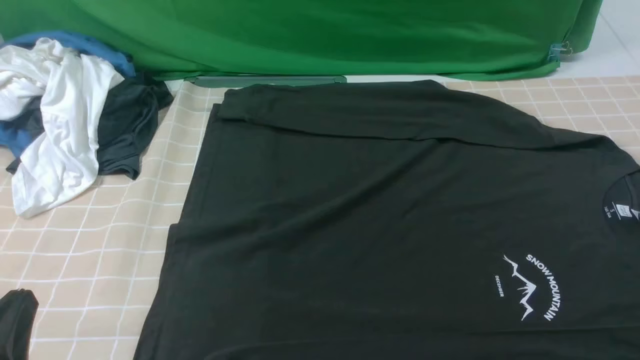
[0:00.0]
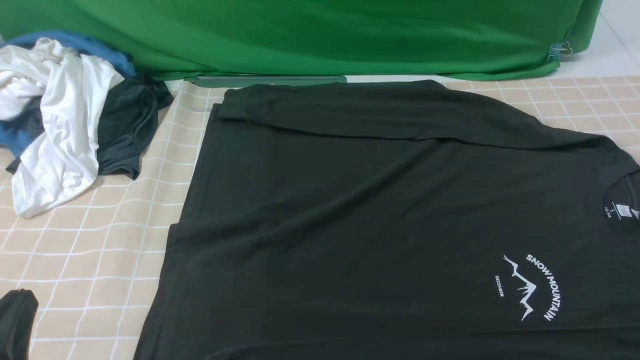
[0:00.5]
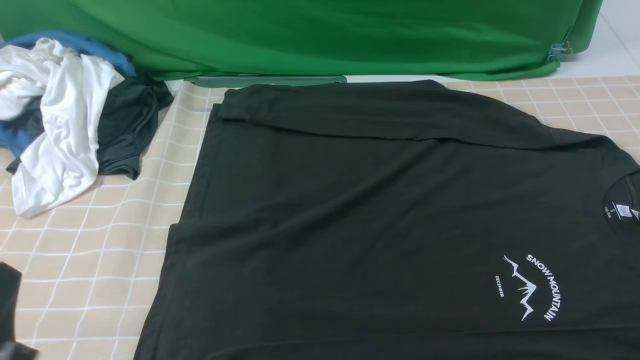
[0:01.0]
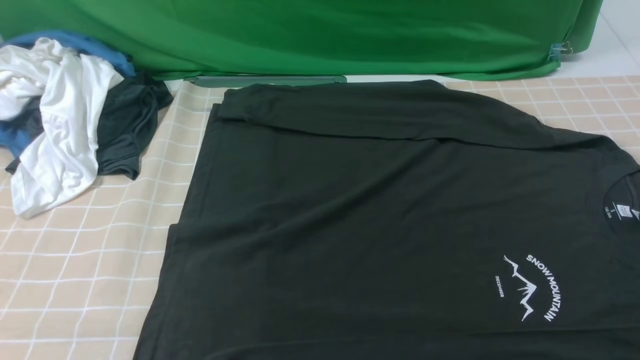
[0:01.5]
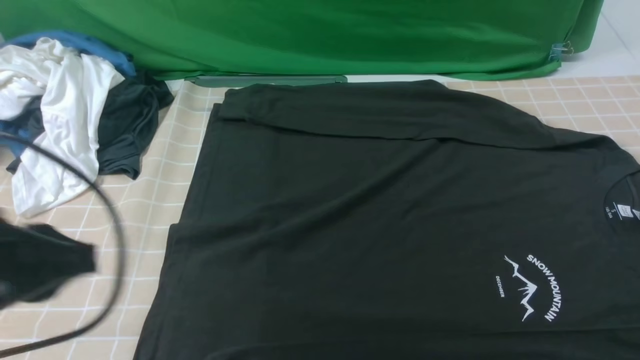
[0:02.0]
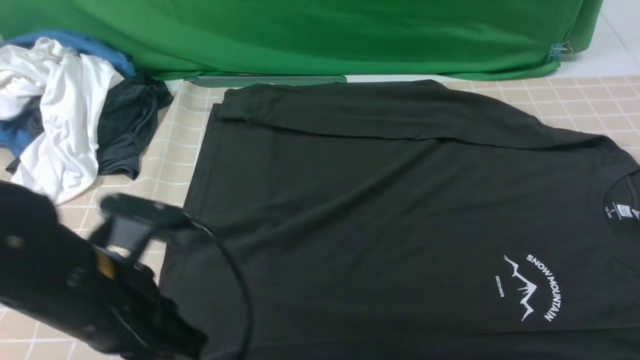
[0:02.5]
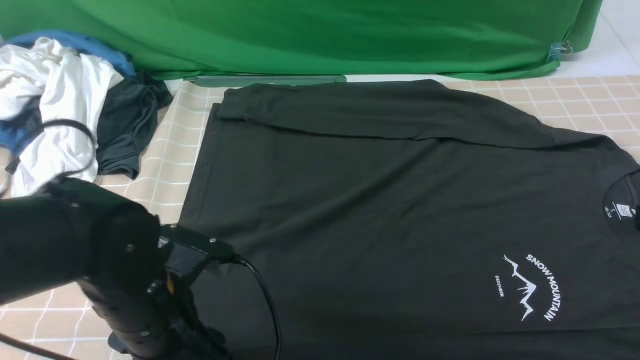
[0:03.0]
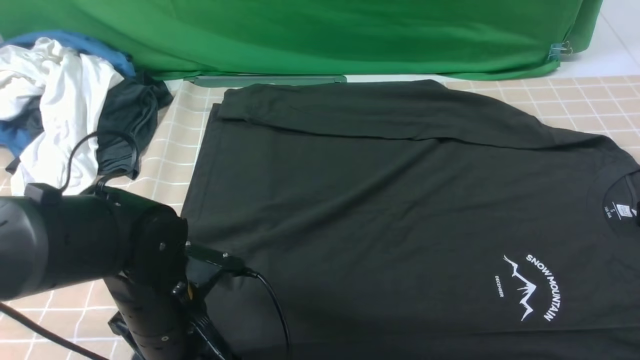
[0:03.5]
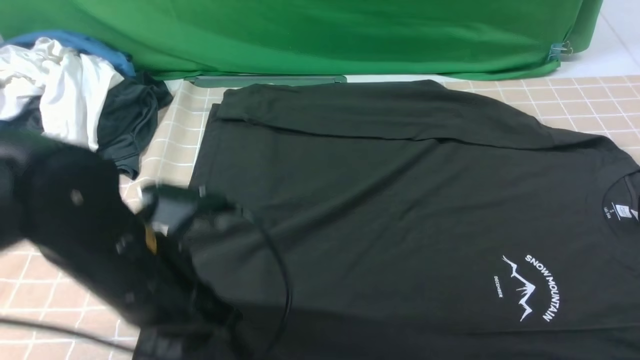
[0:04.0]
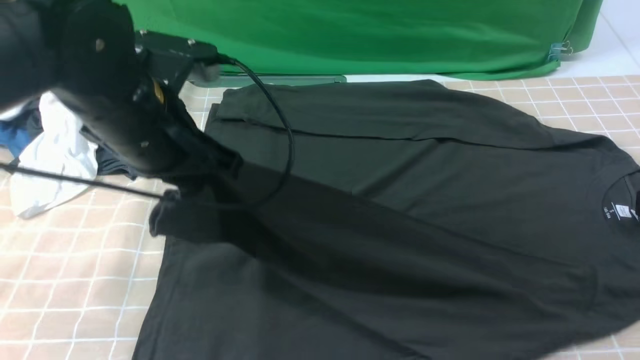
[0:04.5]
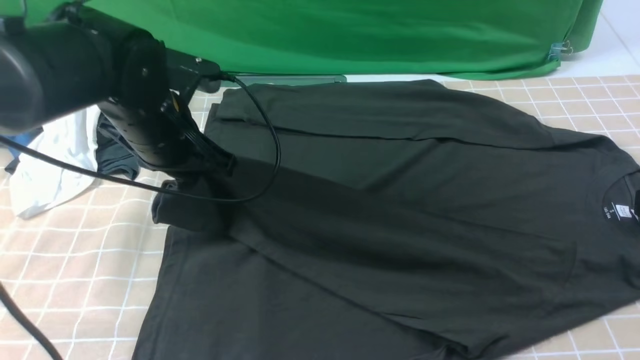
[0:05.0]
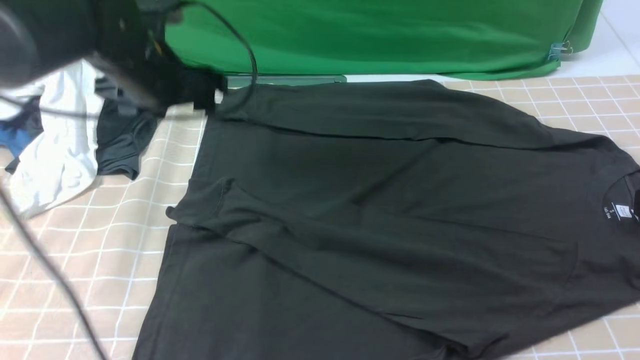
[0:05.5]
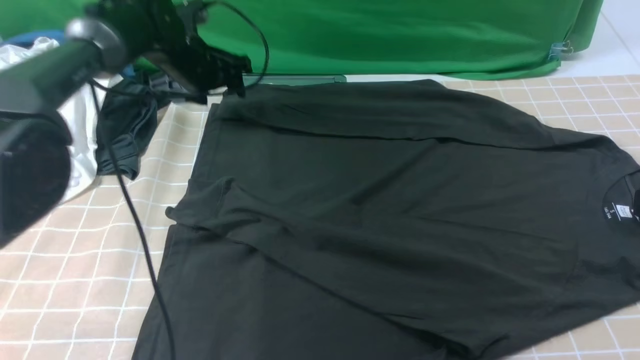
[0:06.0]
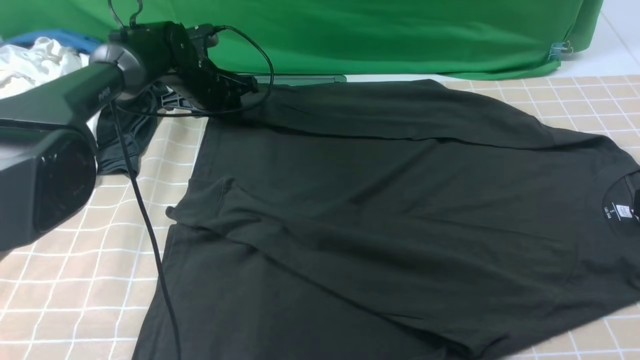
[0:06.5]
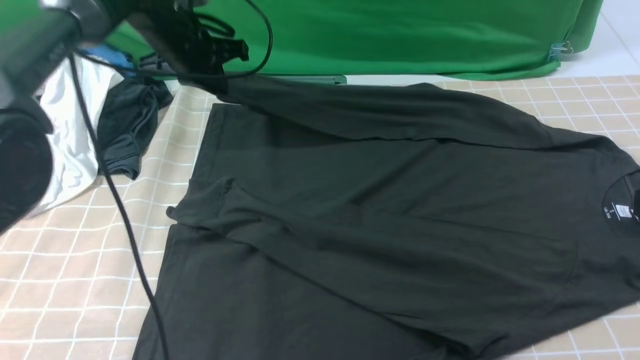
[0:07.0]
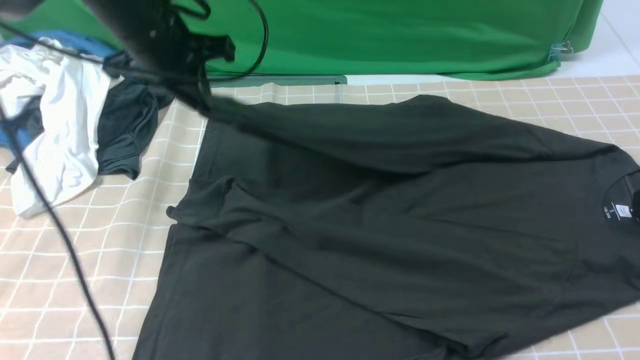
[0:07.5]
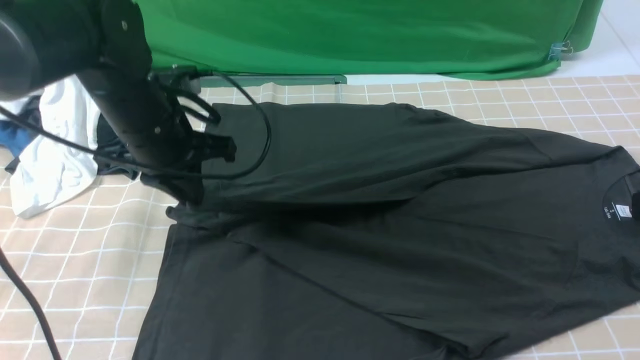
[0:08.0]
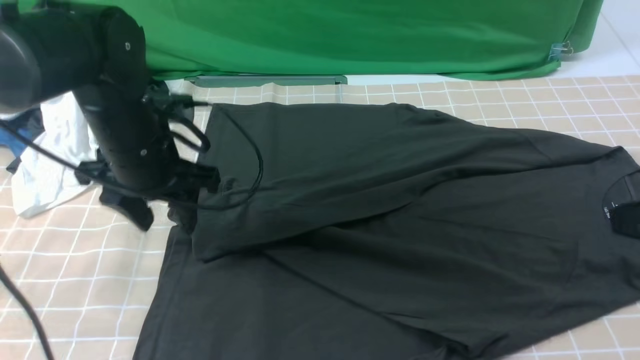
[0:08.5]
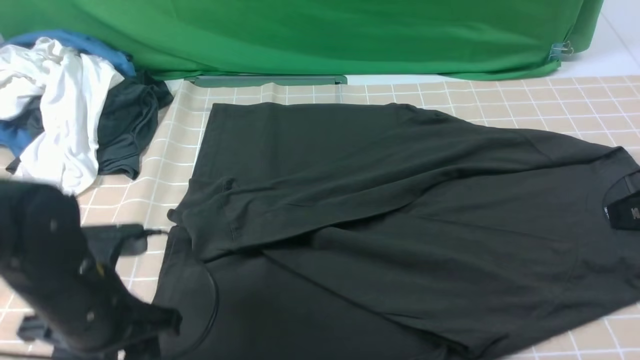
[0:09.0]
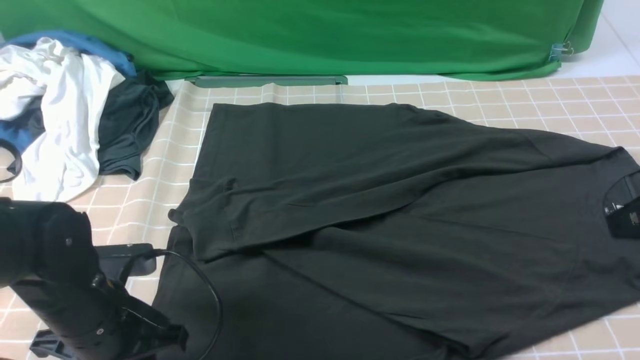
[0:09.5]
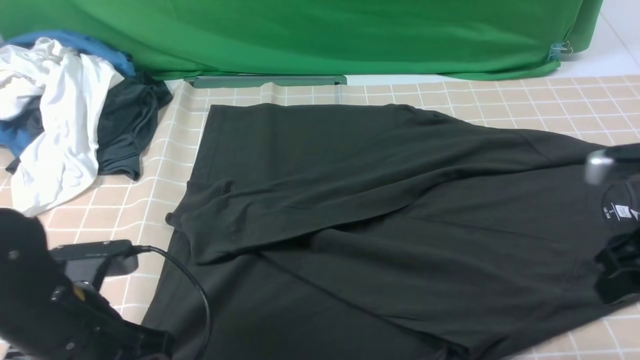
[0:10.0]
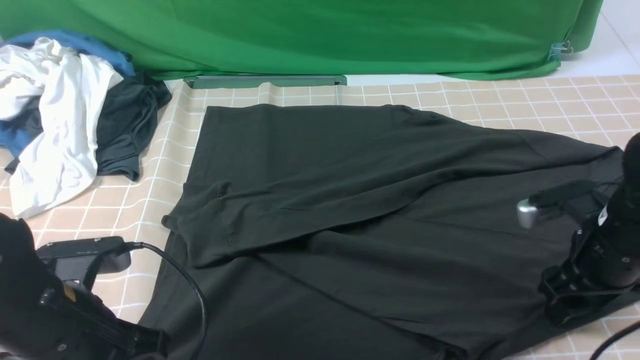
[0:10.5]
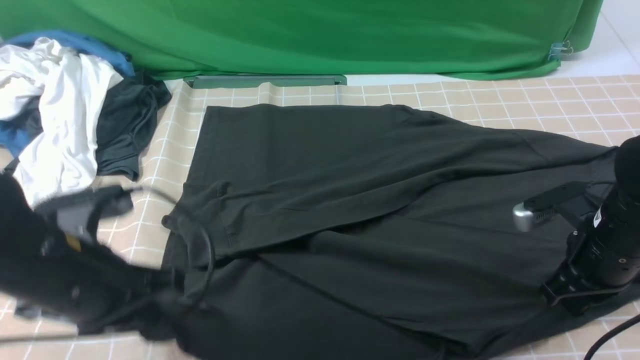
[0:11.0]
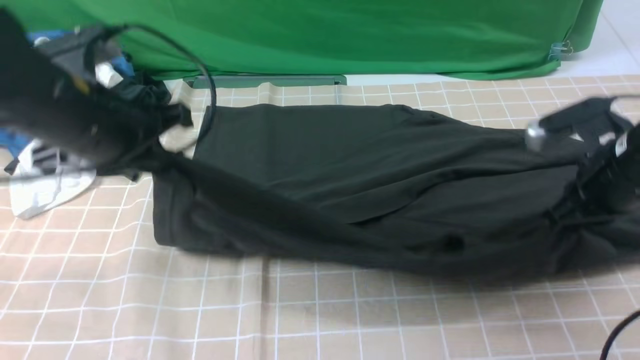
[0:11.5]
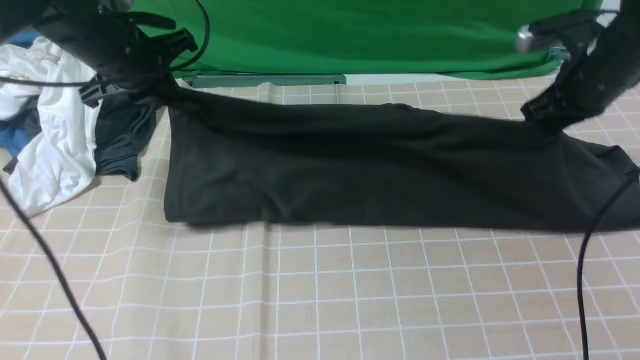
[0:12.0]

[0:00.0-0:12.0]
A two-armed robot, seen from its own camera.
Step, 0:00.0 to 0:03.5: use the left arm to clamp the cuff closest to it.
Step, 0:04.0 to 0:05.0: use the left arm to drag and place the cuff at the centered position on the left edge of the fabric.
Step, 0:05.5 to 0:06.5: use the left arm to clamp the cuff farthest from it.
Step, 0:07.0 to 0:08.0: use the left arm to drag and drop the cuff onto the cuff closest to the left arm.
Step, 0:08.5 to 0:10.5: use both arms simultaneously to clamp the lower edge of the clothing fabric.
0:00.0 to 0:02.0: The left gripper travels upward and forward by roughly 15 cm.
0:02.0 to 0:04.0: The right gripper moves forward and upward, approximately 10 cm; the left gripper shifts about 15 cm to the right, downward and forward, and opens, then closes again.
0:04.0 to 0:06.0: The left gripper is displaced forward by roughly 30 cm, and opens up.
0:06.0 to 0:08.0: The left gripper heads backward, covering approximately 15 cm, and closes.
0:08.0 to 0:10.0: The left gripper travels backward by approximately 20 cm, and opens, then closes once more, while the right gripper travels forward and downward by approximately 10 cm, and opens up.
0:10.0 to 0:12.0: Both grippers travel together forward, approximately 25 cm. The right gripper closes its fingers.

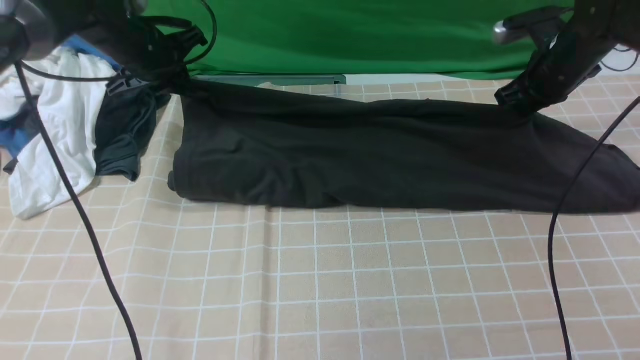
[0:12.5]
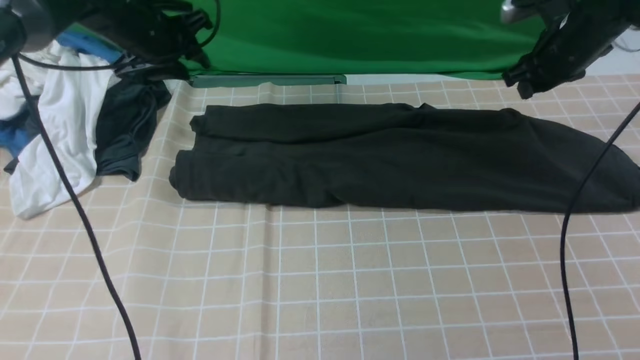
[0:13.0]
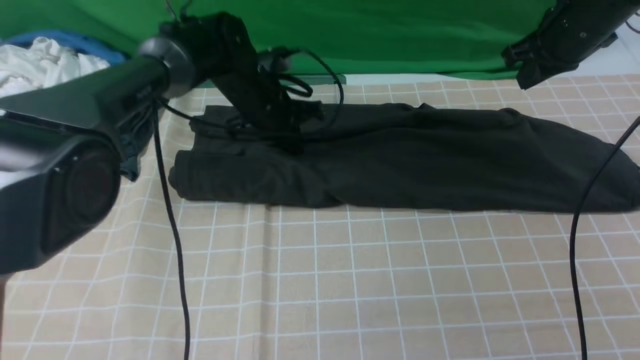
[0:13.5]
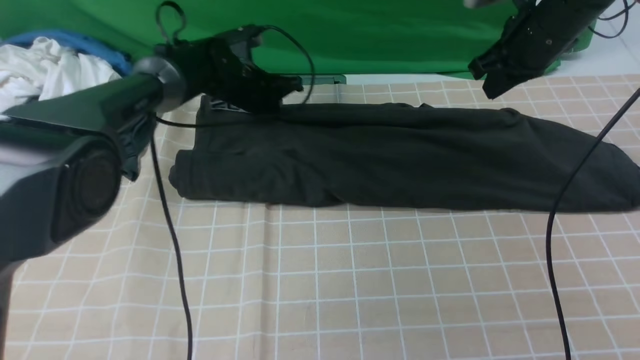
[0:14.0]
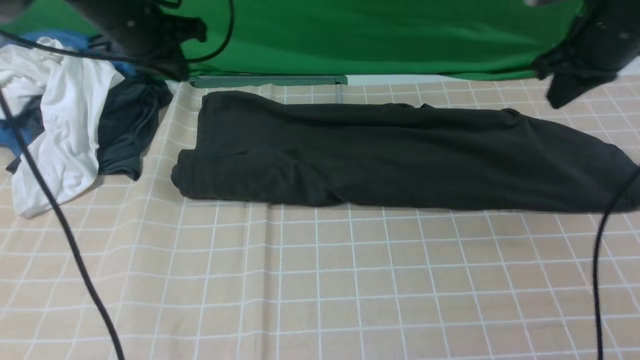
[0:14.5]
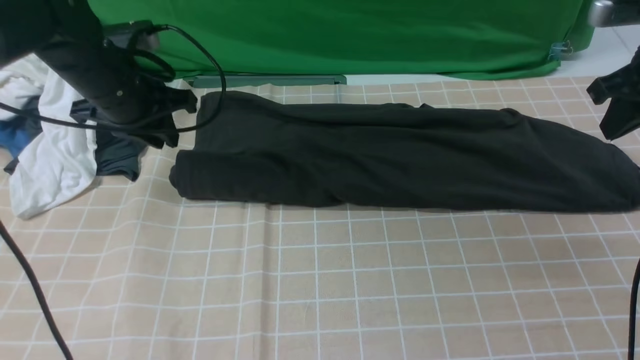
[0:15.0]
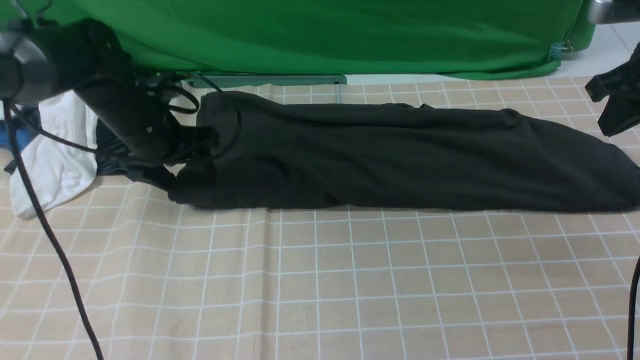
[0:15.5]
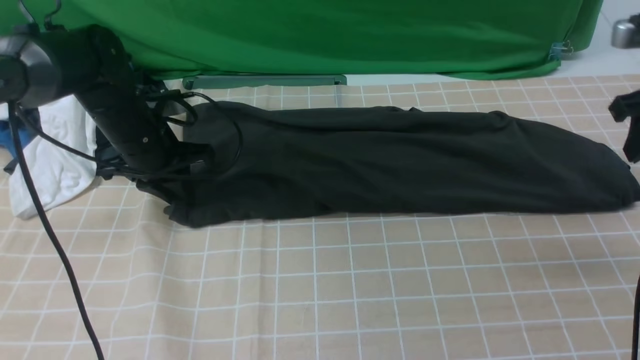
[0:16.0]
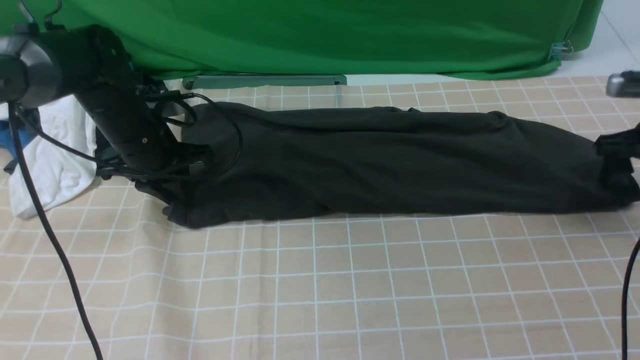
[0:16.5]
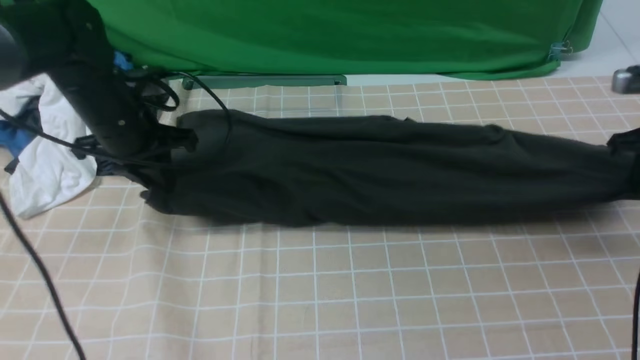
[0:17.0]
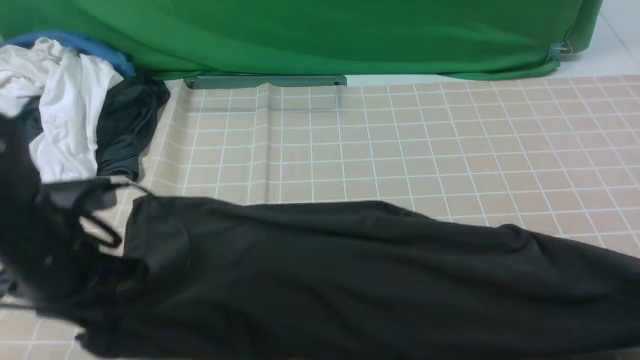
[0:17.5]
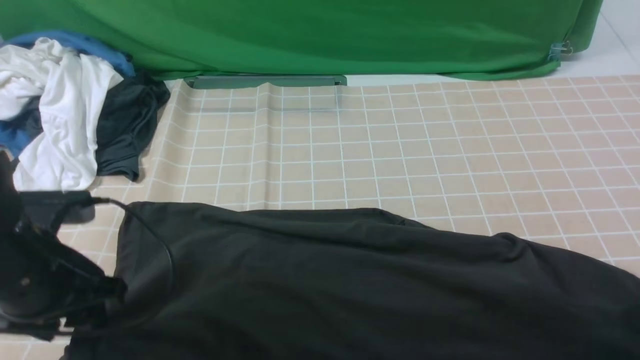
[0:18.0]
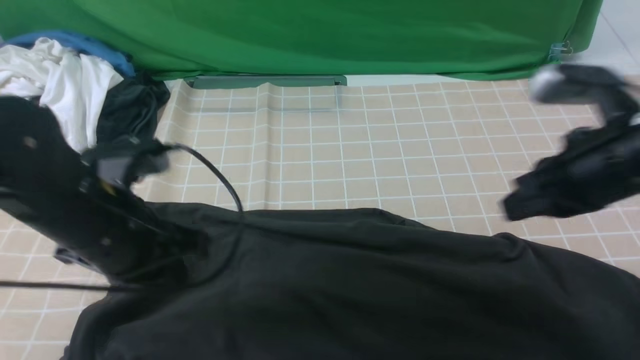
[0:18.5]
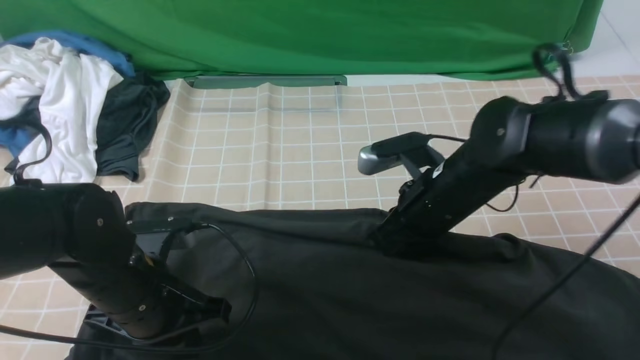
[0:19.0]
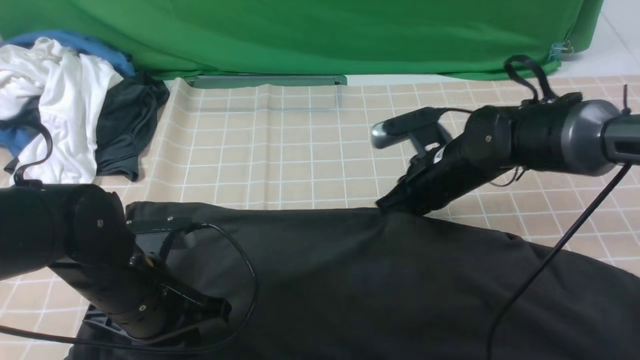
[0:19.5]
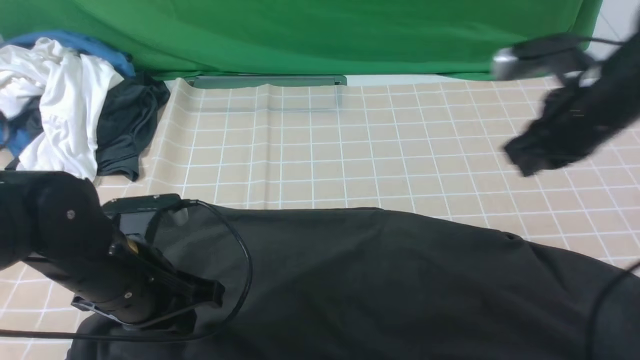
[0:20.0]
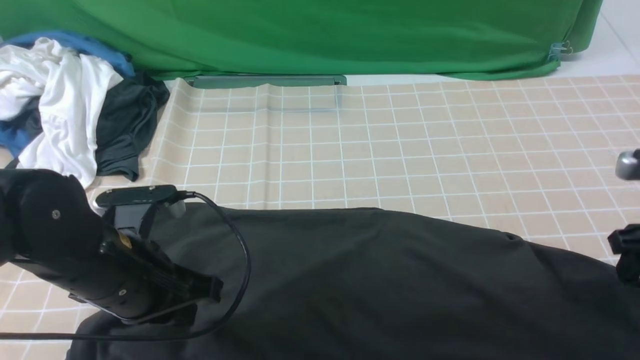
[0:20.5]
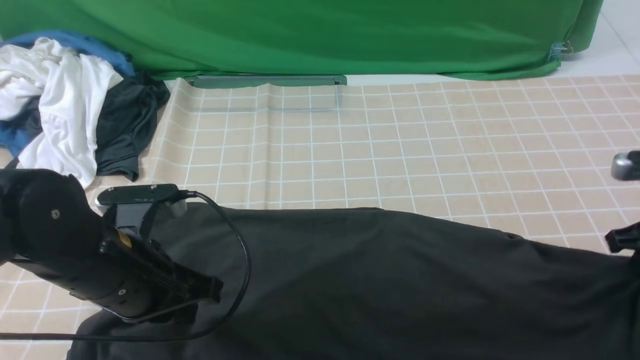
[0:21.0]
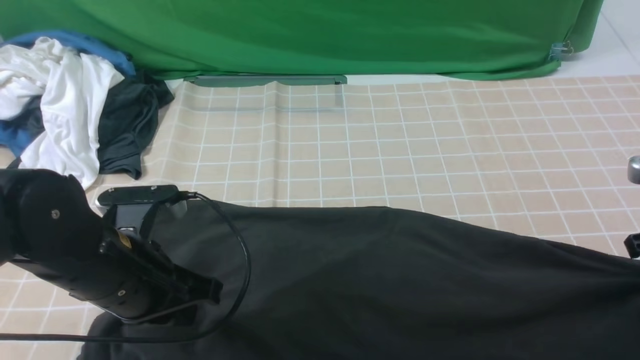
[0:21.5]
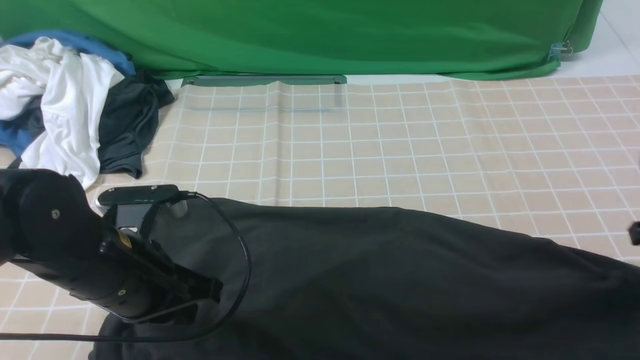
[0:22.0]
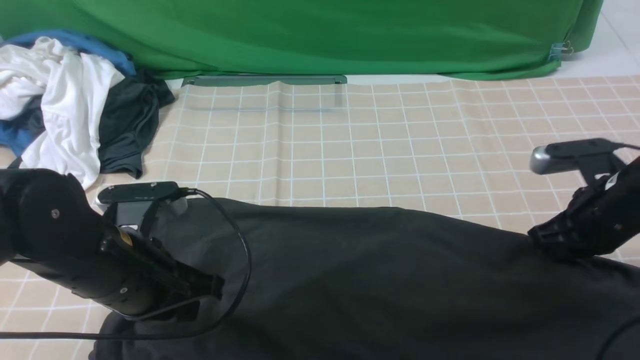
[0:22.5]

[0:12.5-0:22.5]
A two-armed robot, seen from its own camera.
Step, 0:12.5 to 0:14.0: use both arms to drag the lower edge of the fabric forward and fold it over the upper edge.
0:12.5 to 0:14.5: The left gripper reaches roughly 15 cm to the right, then returns, while the right gripper shifts roughly 10 cm upward and backward.
0:14.5 to 0:16.5: The left gripper heads downward, covering about 10 cm, and opens, then closes once more; the right gripper moves downward and to the right, some 15 cm, and opens its fingers.
0:16.5 to 0:18.5: The left gripper heads backward, covering approximately 20 cm, and opens, then closes once more. Meanwhile the right gripper shifts roughly 20 cm to the left, backward and upward, and closes its fingers.
0:18.5 to 0:20.5: The right gripper heads to the right and downward, covering roughly 15 cm, and opens.
0:20.5 to 0:22.5: The right gripper is displaced to the left by approximately 5 cm, and closes.
